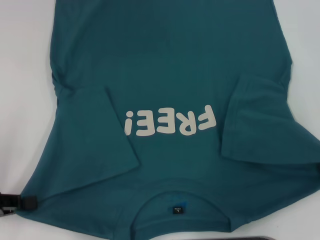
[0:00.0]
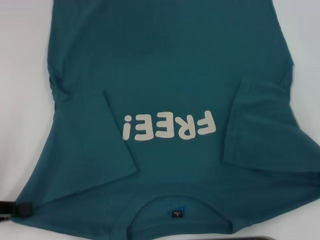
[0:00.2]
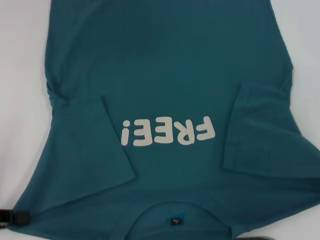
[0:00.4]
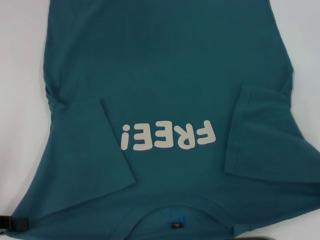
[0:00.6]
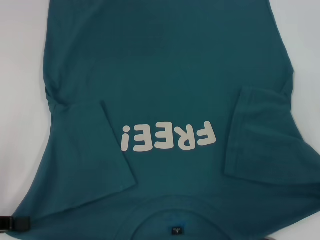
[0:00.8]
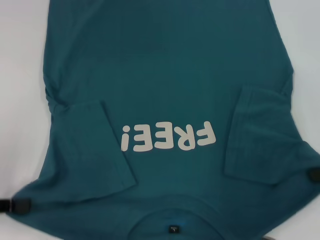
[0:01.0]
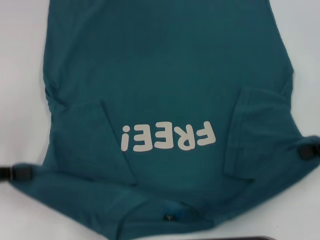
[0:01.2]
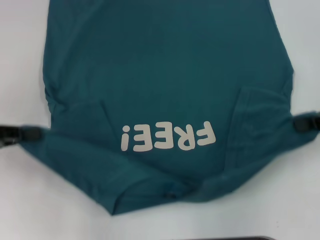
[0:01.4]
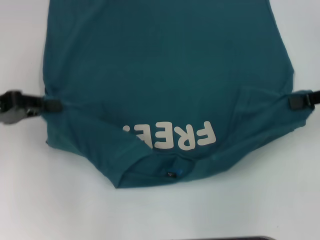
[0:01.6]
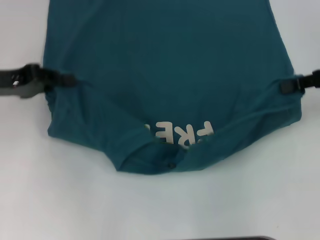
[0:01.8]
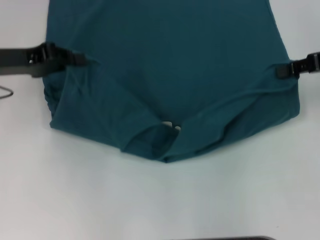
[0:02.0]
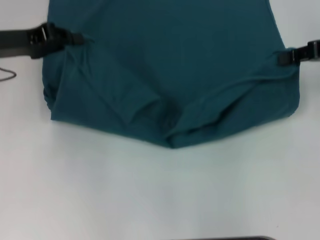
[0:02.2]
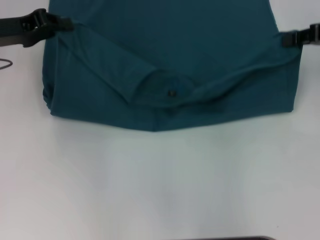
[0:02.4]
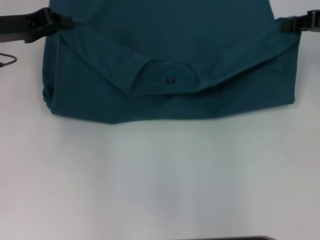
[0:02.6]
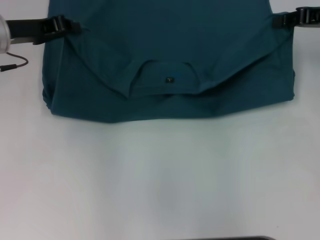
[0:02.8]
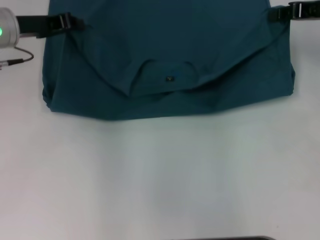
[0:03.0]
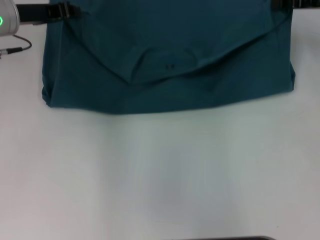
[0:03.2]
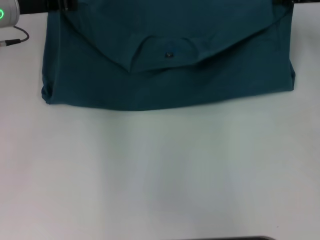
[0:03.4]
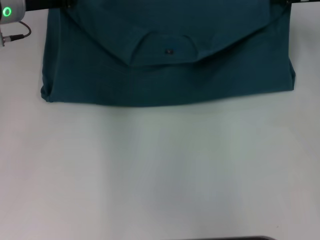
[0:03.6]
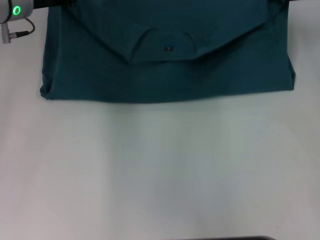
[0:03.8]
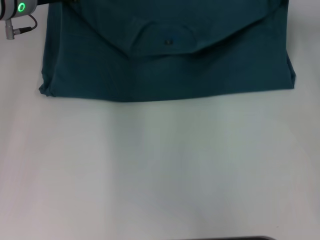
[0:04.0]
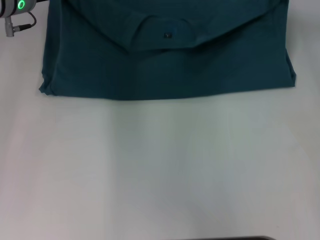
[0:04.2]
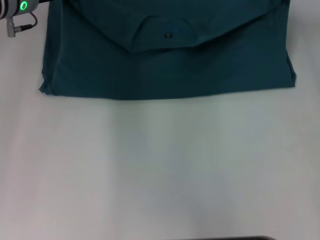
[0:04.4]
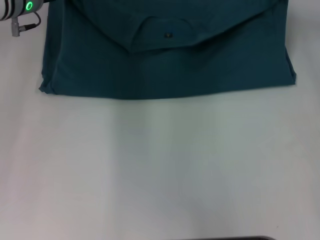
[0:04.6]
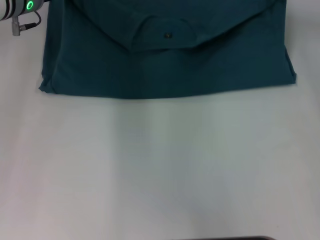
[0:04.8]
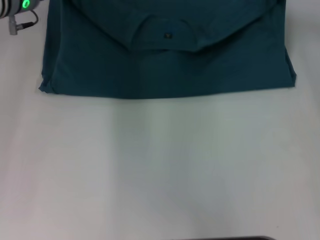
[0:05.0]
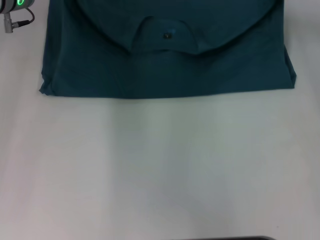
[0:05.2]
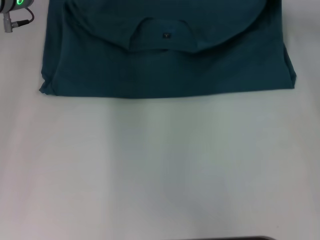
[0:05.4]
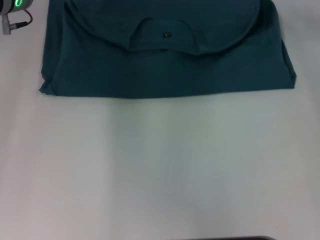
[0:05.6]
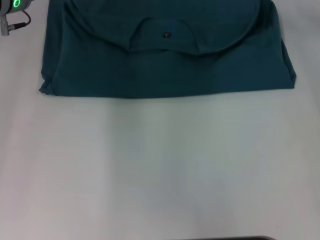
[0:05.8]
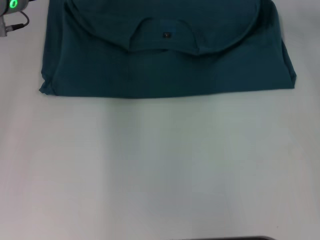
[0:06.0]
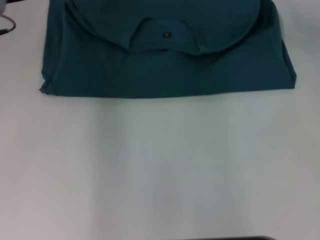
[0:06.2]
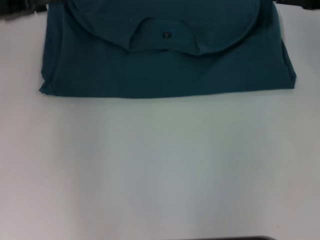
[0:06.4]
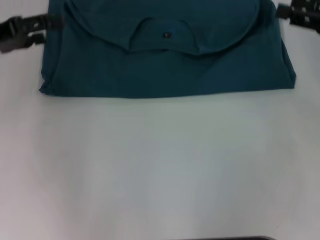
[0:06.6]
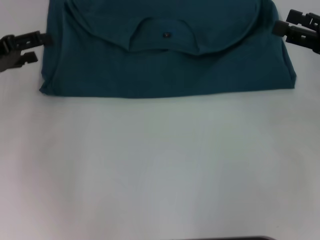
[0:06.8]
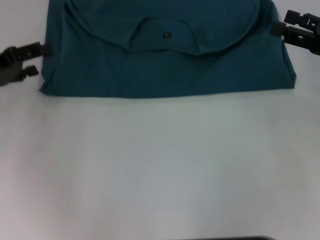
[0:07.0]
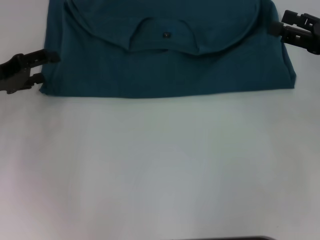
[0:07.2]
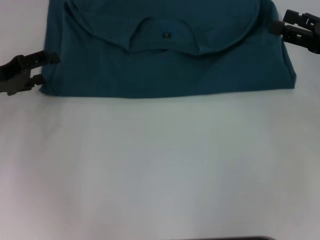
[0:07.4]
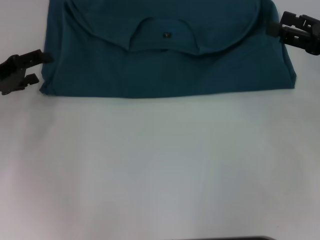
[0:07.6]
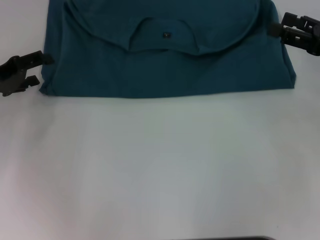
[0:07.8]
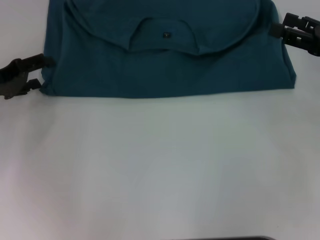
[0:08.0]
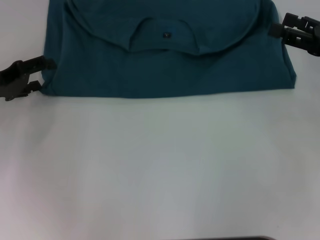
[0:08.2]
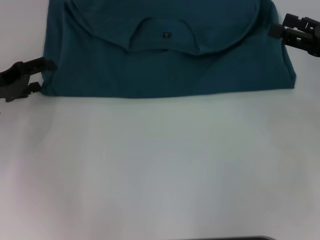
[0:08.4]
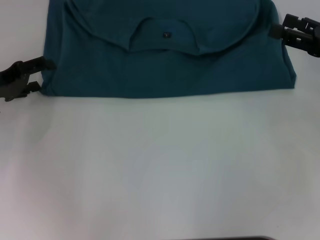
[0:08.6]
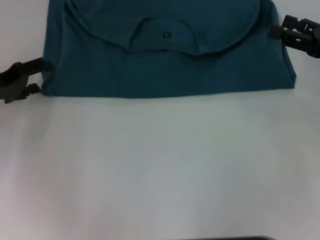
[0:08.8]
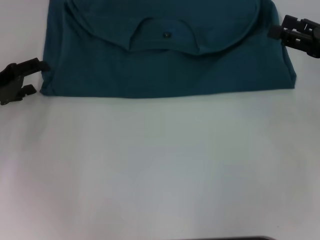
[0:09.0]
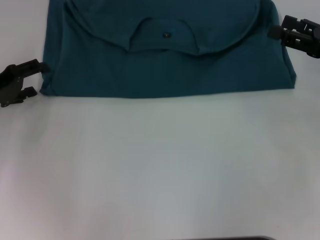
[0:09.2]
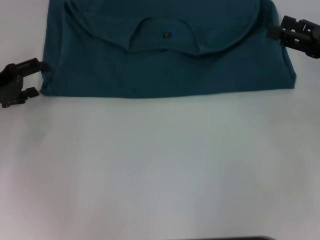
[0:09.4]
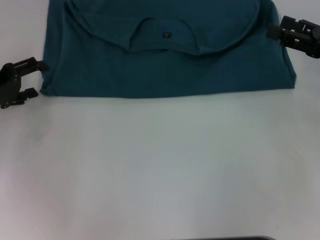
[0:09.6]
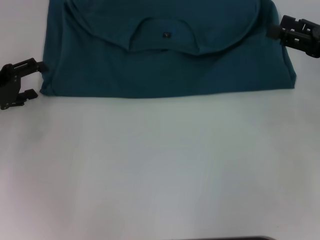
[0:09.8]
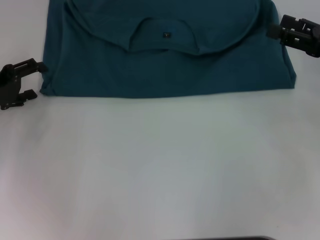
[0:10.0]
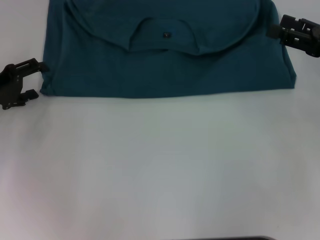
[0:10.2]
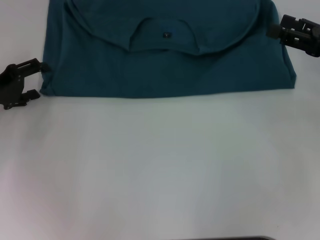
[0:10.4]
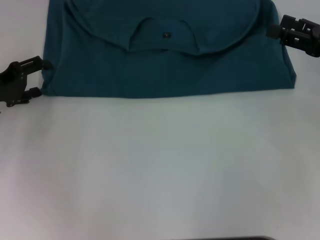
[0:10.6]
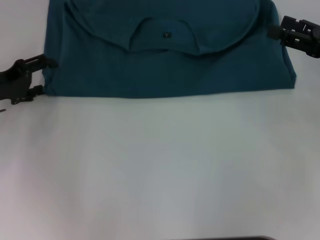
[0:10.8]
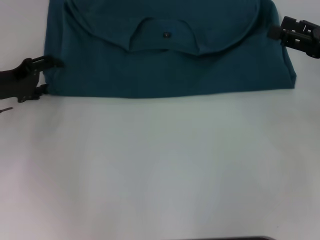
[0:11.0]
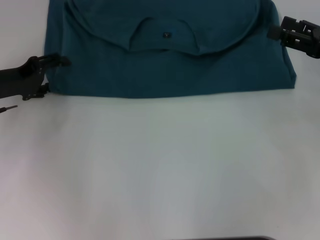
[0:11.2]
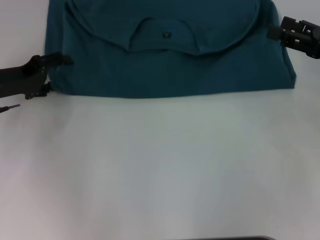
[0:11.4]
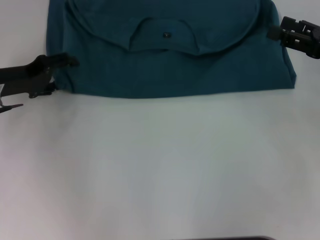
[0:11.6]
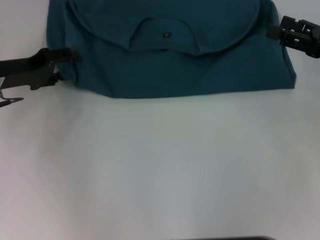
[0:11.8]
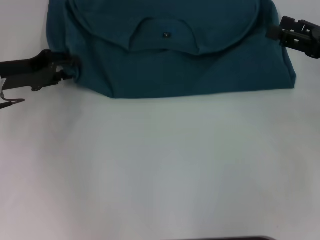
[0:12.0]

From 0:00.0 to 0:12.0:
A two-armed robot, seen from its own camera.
Step, from 0:00.0 to 0:06.0: Fold the clothes to the left.
Step, from 0:00.0 to 0:06.0: Fold the clothes to the right.
From 0:00.0 to 0:01.6: The right gripper moves approximately 5 cm, while the left gripper travels forward and upward by roughly 10 cm.
From 0:01.6 to 0:03.0: The right gripper travels forward by approximately 10 cm, while the left gripper is displaced forward and to the right by roughly 15 cm.
From 0:03.0 to 0:04.4: The left gripper ends up approximately 5 cm from where it was.
From 0:04.4 to 0:06.0: The right gripper opens up; the left gripper opens up.
From 0:06.0 to 0:07.6: The right gripper is displaced backward by roughly 15 cm. Meanwhile the left gripper goes some 15 cm backward, to the left and downward.
From 0:07.6 to 0:09.0: The grippers stay close to where they were, moving slightly.
From 0:10.4 to 0:12.0: The left gripper moves about 5 cm.

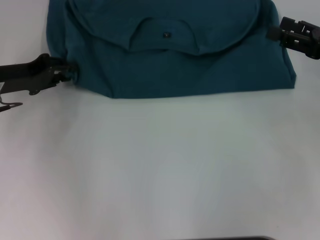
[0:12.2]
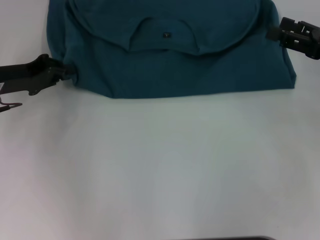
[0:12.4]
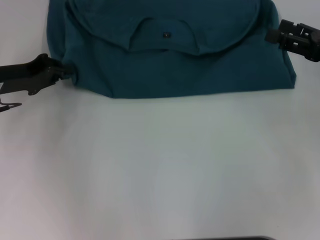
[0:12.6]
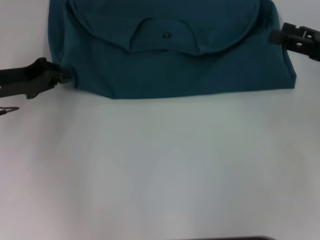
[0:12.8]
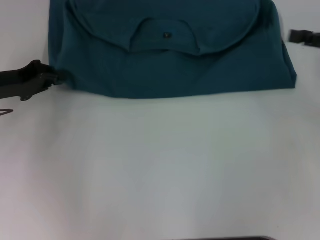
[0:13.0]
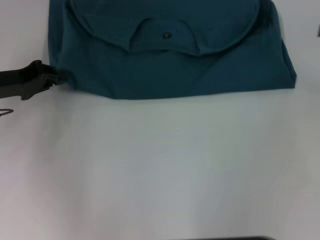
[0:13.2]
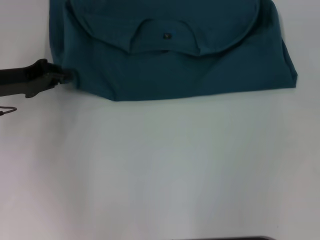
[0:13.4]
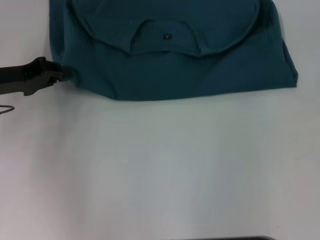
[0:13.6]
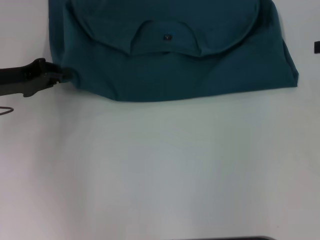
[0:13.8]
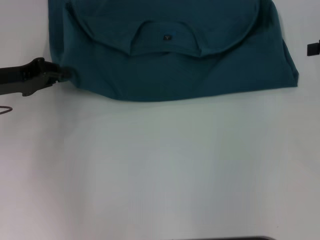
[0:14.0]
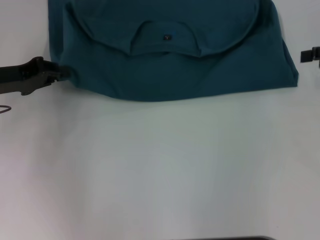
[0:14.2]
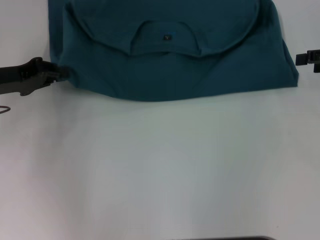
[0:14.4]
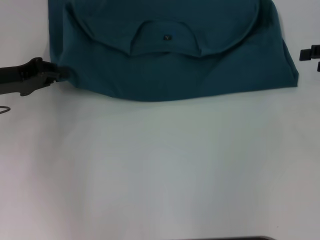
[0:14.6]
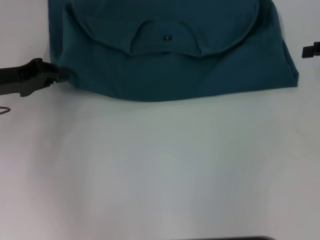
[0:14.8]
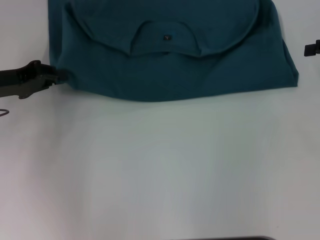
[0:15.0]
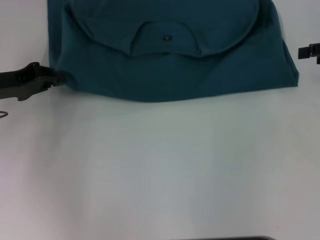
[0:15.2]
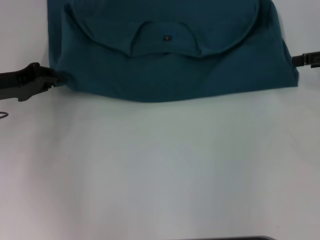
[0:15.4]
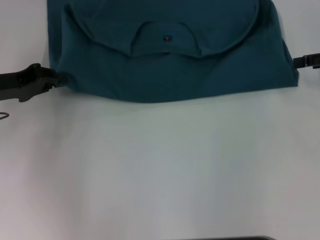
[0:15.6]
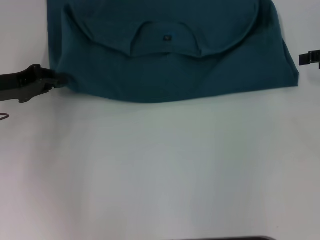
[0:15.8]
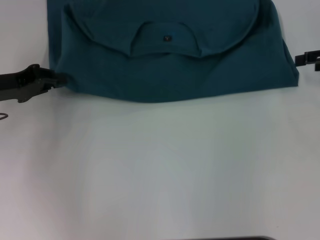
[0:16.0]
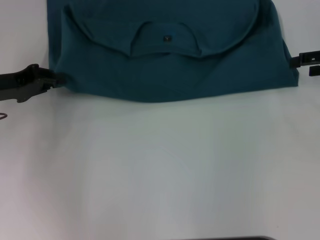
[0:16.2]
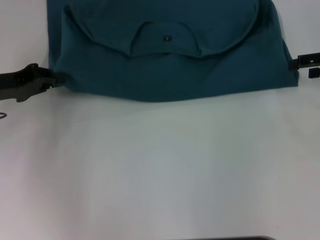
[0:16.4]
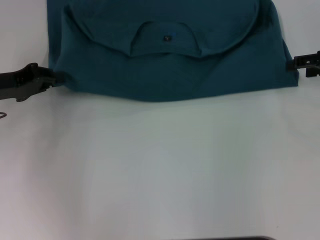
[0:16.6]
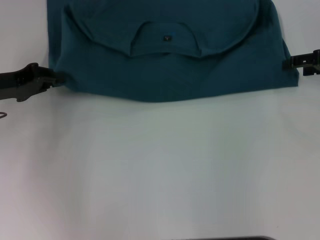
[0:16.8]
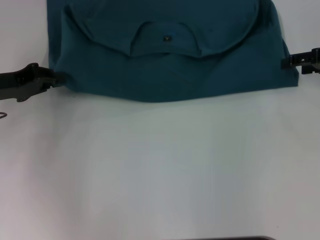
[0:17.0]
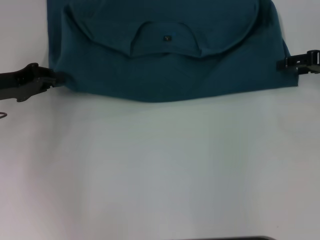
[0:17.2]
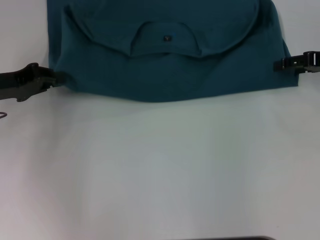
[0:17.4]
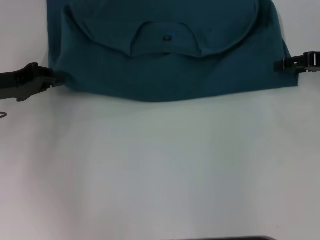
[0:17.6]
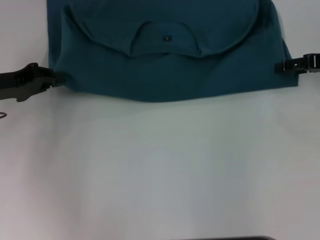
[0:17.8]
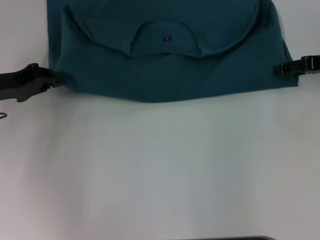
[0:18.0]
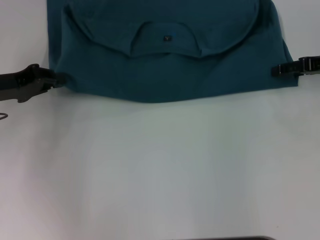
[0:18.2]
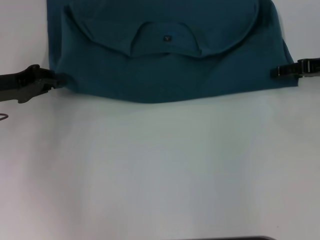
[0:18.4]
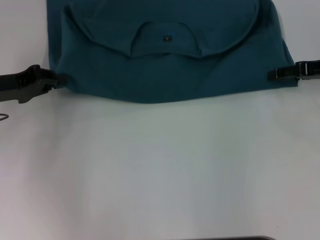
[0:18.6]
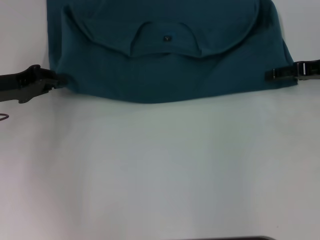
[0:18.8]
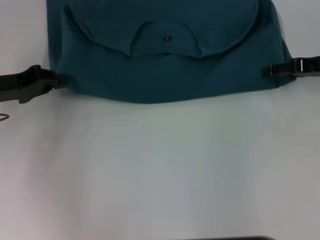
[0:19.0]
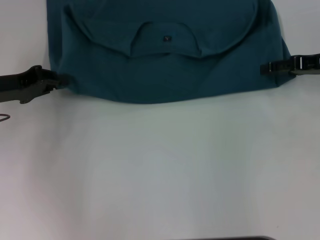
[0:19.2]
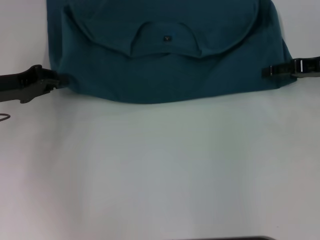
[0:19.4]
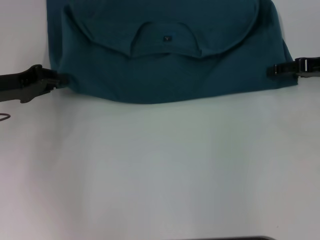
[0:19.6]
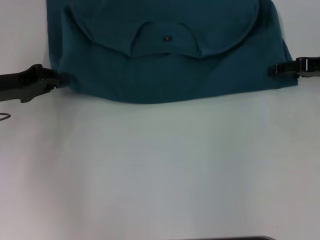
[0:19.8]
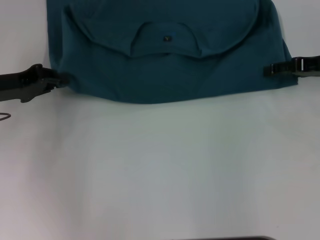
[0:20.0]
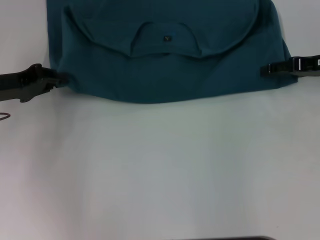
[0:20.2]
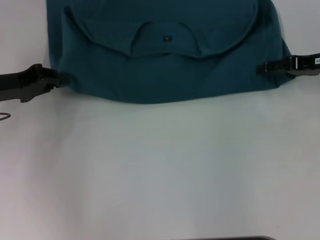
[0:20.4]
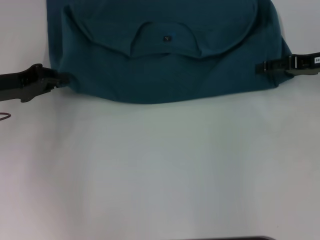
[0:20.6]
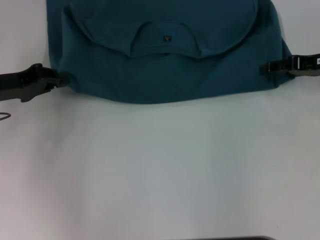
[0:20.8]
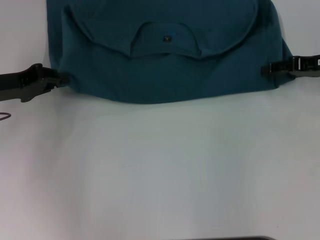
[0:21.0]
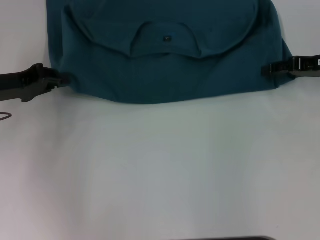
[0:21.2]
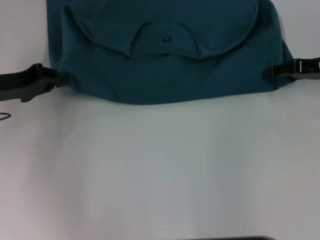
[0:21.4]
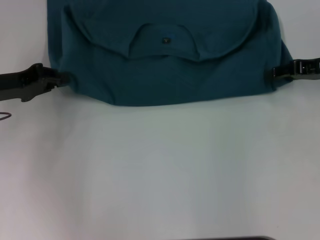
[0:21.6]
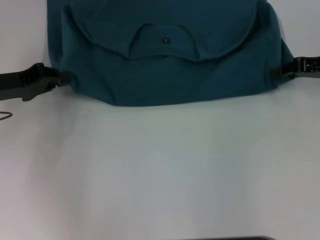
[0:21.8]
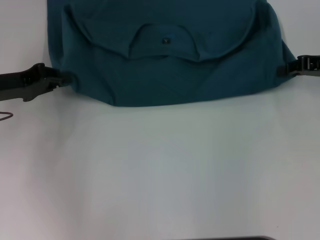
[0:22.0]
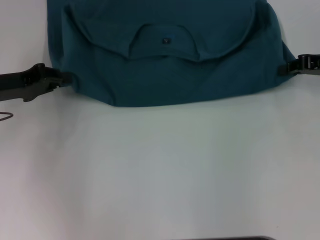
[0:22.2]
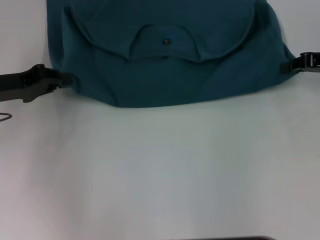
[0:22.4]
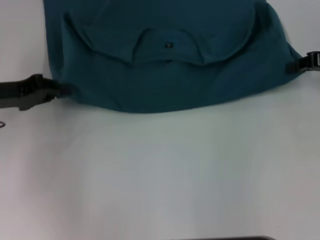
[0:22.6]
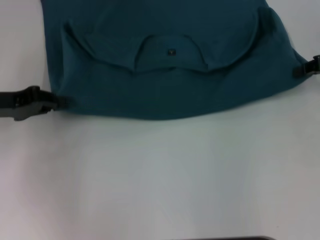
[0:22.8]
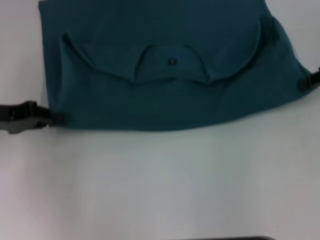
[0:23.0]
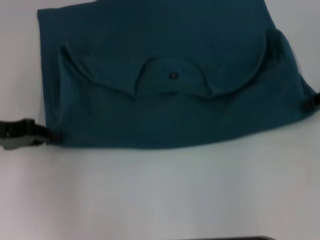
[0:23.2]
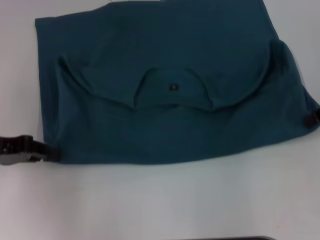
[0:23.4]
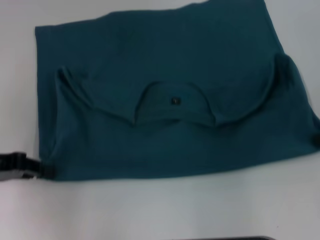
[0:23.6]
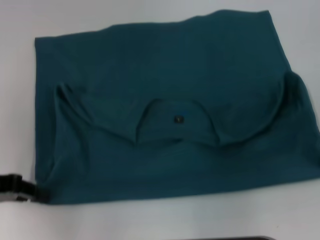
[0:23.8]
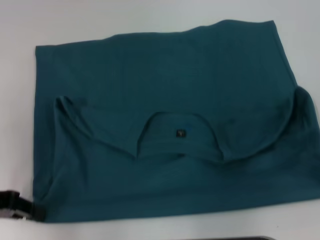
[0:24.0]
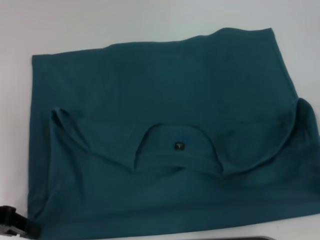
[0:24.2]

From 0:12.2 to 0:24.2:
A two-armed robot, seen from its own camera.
Step, from 0:12.2 to 0:24.2: Pull the clothes with your left hand.
Step, from 0:12.2 to 0:24.2: Pull the clothes with your right hand.
From 0:12.2 to 0:13.8: The right gripper goes roughly 10 cm upward and to the right. The left gripper closes.
From 0:13.8 to 0:15.2: The grippers make only small movements.
From 0:15.2 to 0:18.2: The grippers move only a little.
From 0:21.2 to 0:22.6: The right gripper closes its fingers.
From 0:22.6 to 0:24.2: Both grippers travel together backward, some 10 cm.
